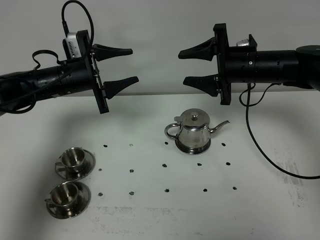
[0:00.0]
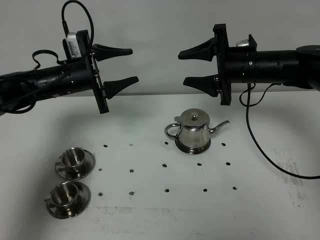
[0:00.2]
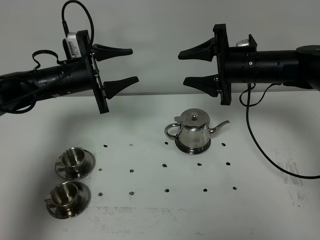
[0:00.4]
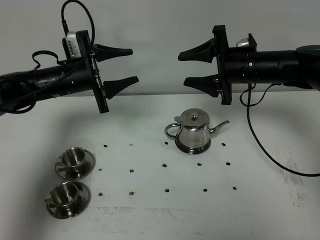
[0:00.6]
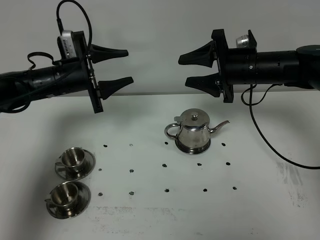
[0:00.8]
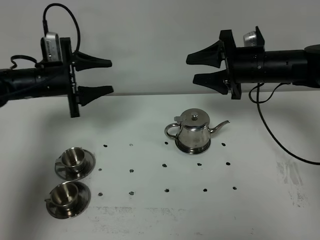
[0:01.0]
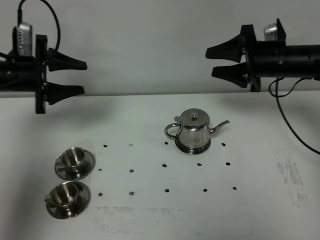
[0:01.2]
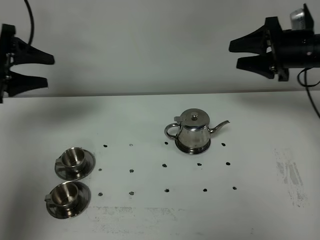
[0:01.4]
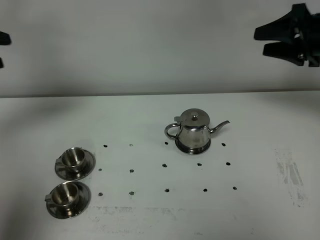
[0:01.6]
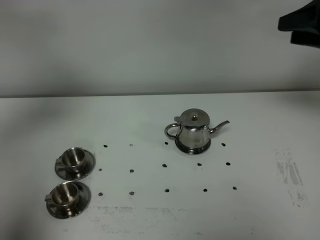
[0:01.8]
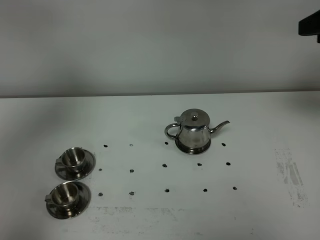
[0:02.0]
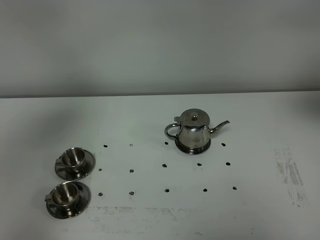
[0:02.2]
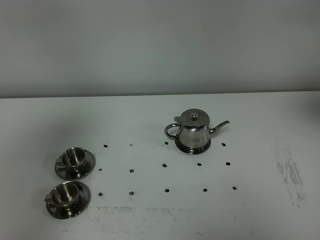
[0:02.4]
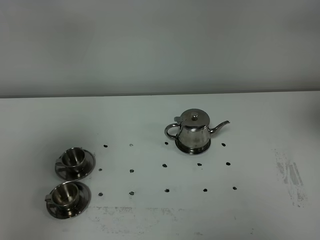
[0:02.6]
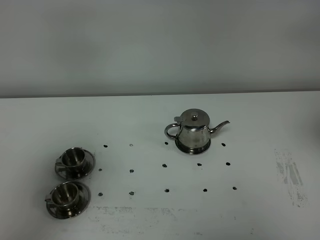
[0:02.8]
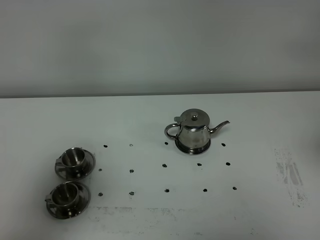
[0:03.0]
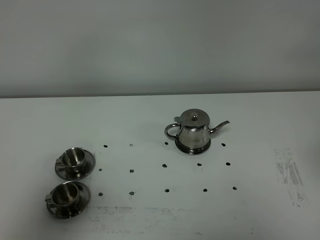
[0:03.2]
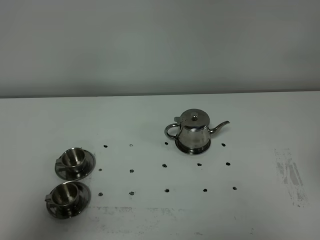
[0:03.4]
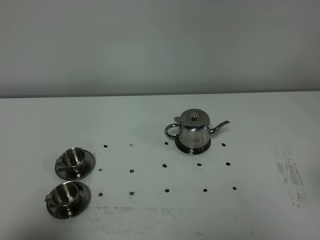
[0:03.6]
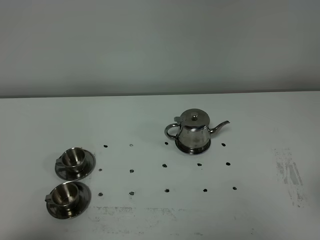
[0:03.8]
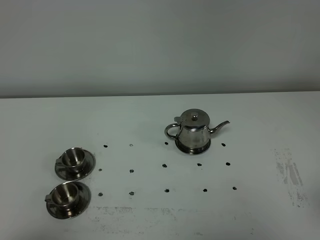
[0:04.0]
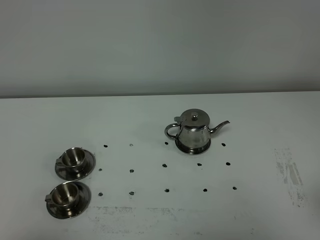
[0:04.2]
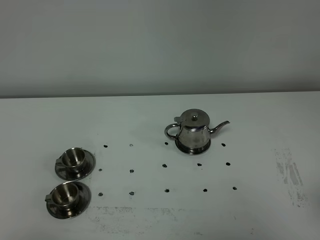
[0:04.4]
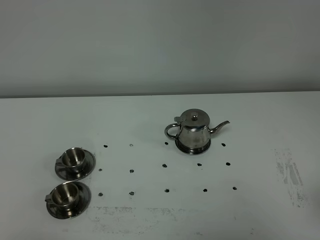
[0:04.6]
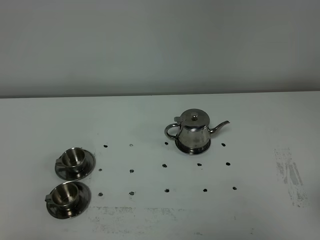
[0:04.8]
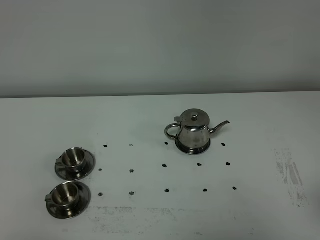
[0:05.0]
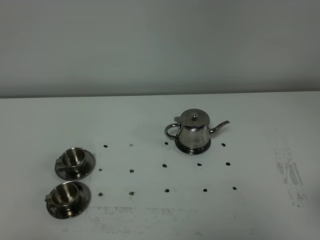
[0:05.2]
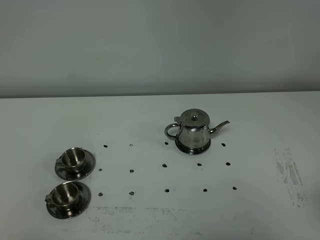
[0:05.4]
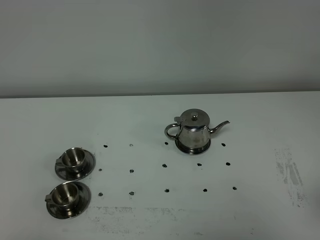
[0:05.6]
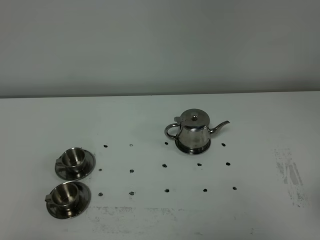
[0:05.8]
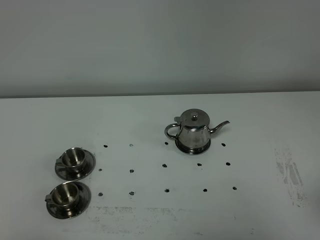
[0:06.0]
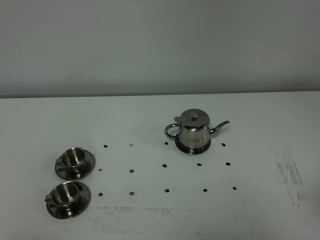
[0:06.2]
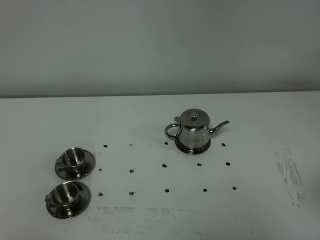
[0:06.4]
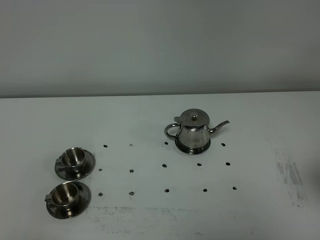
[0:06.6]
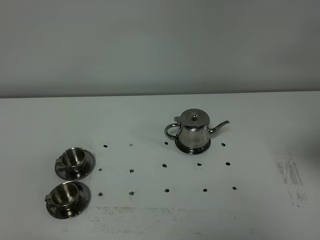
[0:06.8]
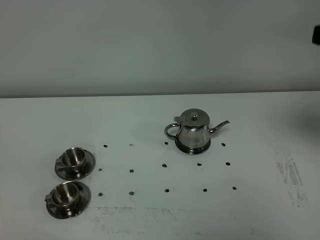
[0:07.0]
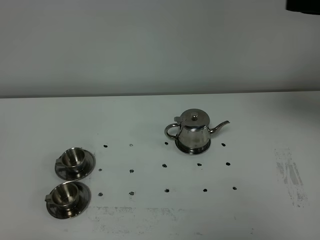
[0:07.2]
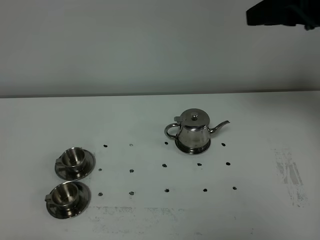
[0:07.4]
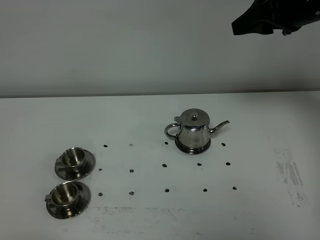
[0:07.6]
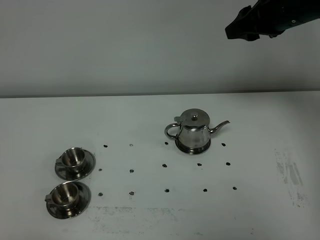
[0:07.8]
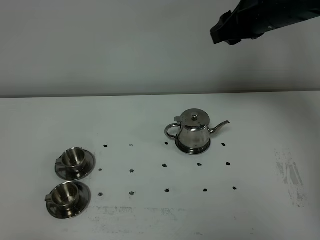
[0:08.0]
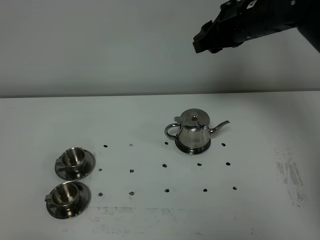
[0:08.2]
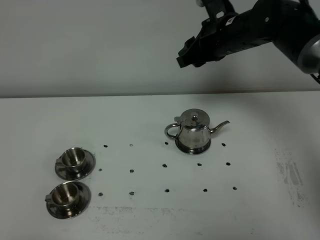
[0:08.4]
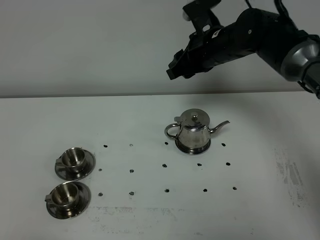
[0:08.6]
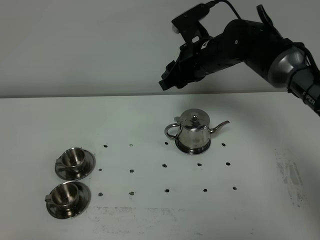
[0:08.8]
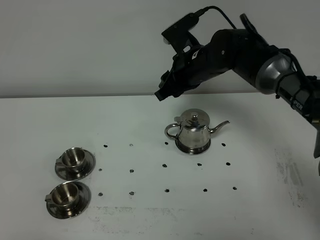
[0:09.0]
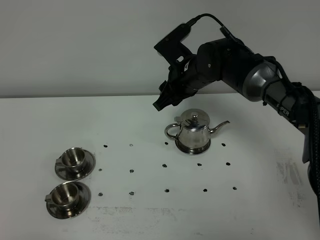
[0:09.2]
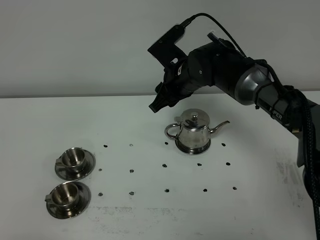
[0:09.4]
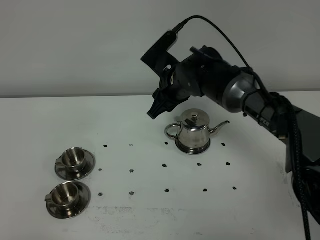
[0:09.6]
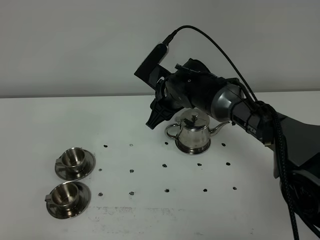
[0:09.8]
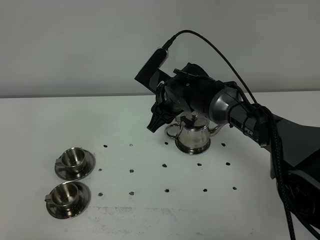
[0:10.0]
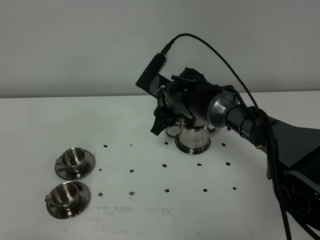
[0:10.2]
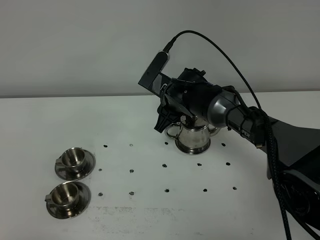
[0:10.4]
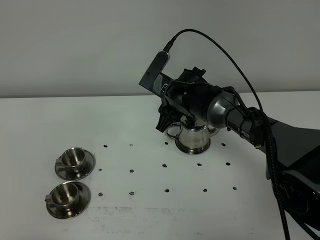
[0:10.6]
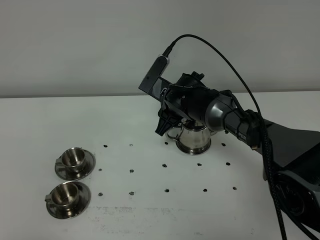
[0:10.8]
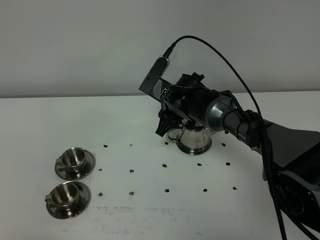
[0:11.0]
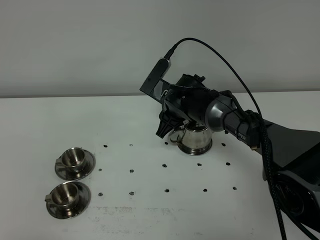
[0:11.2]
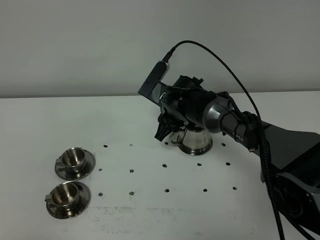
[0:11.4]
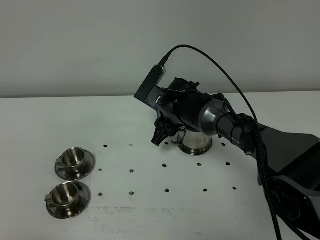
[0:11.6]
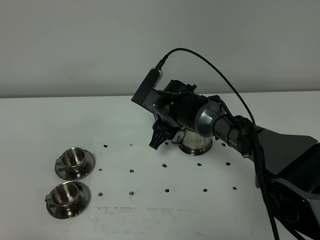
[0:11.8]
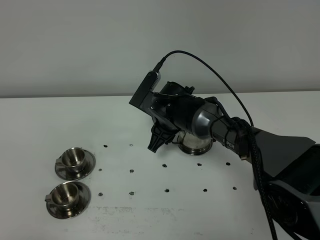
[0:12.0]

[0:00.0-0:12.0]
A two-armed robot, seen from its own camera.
Task of the whole recording: grasp the stainless steel teapot and pour the tea into the two stainless steel teacups one by one, put the stainless steel teapot back in its original place.
0:00.0 to 0:01.6: The left gripper shifts roughly 25 cm to the left, upward and backward, while the right gripper heads to the right and upward, covering some 15 cm.
0:01.6 to 0:03.0: The grippers both shift backward by about 25 cm.
0:03.0 to 0:04.4: The left gripper shifts roughly 20 cm downward and backward.
0:04.4 to 0:06.0: Neither gripper changes place.
0:06.0 to 0:07.6: The right gripper goes some 30 cm forward.
0:07.6 to 0:09.0: The right gripper travels to the left and downward by approximately 20 cm.
0:09.0 to 0:10.4: The right gripper heads downward, covering about 5 cm.
0:10.4 to 0:12.0: The grippers move only a little.

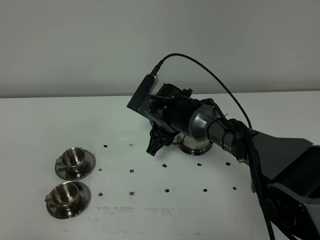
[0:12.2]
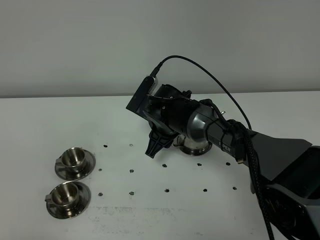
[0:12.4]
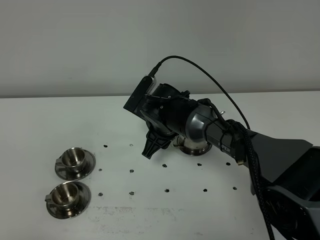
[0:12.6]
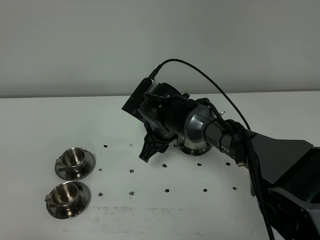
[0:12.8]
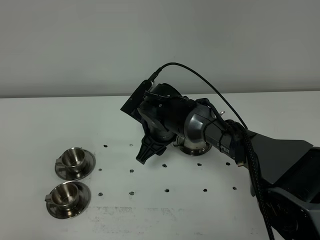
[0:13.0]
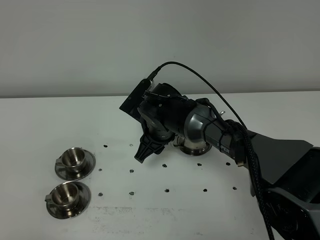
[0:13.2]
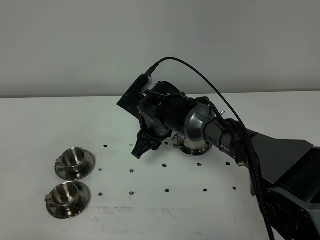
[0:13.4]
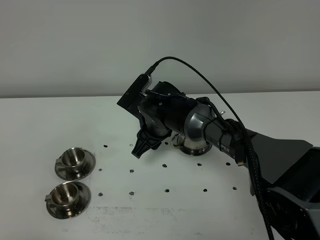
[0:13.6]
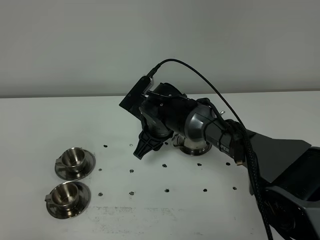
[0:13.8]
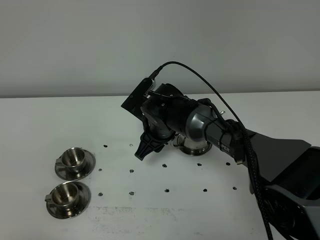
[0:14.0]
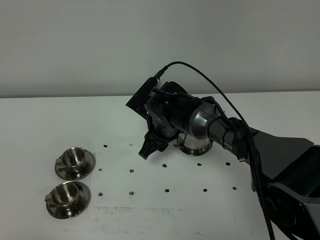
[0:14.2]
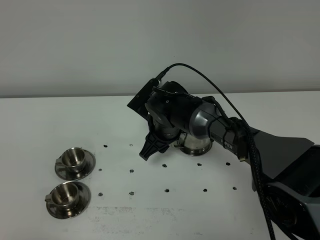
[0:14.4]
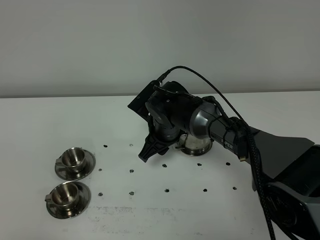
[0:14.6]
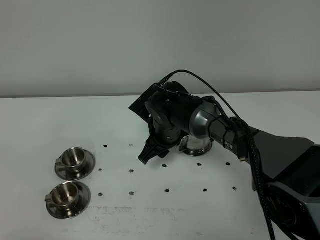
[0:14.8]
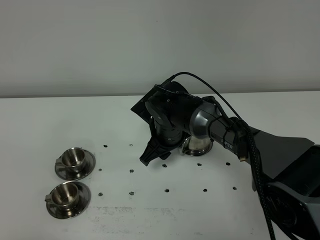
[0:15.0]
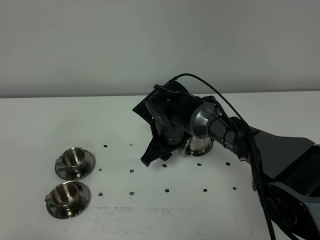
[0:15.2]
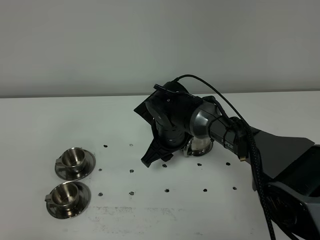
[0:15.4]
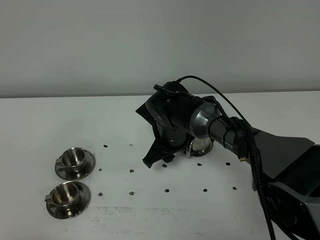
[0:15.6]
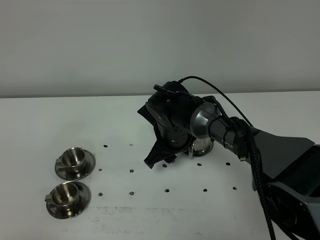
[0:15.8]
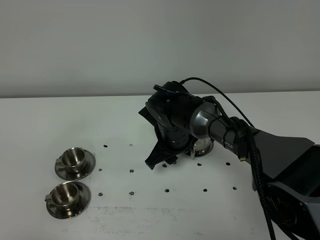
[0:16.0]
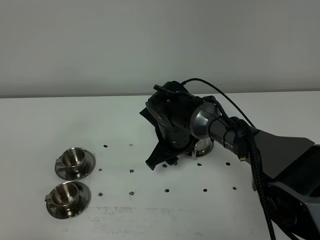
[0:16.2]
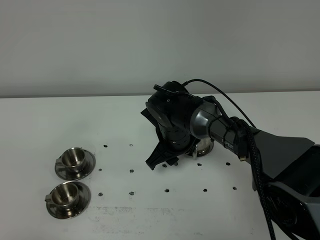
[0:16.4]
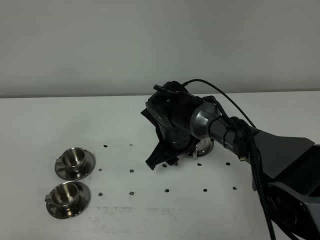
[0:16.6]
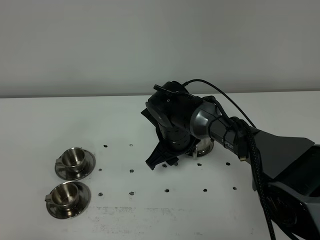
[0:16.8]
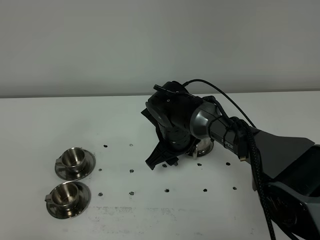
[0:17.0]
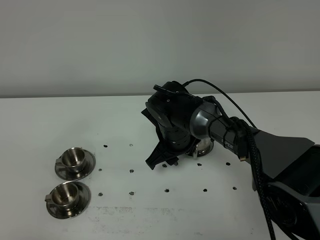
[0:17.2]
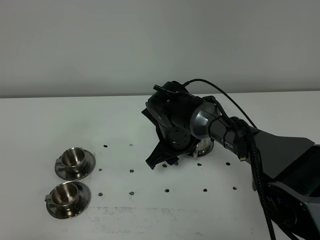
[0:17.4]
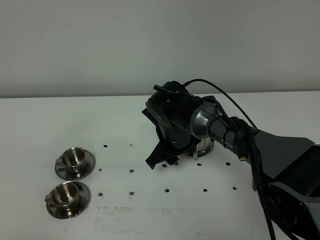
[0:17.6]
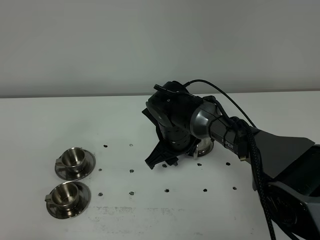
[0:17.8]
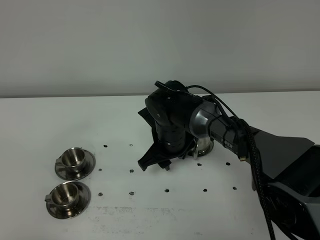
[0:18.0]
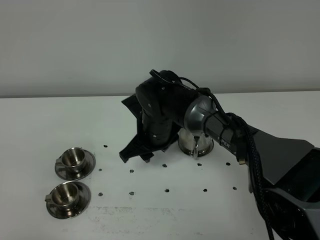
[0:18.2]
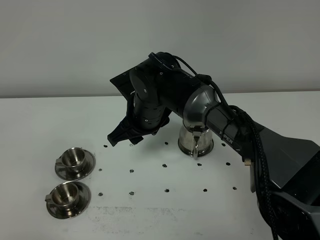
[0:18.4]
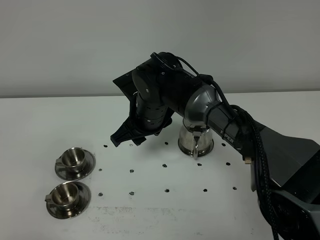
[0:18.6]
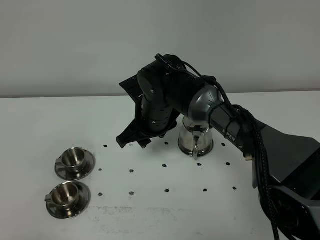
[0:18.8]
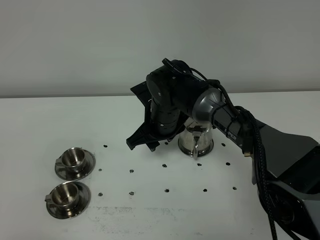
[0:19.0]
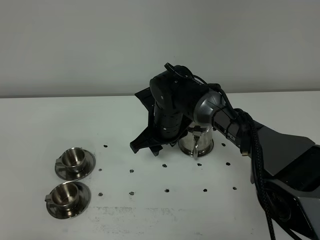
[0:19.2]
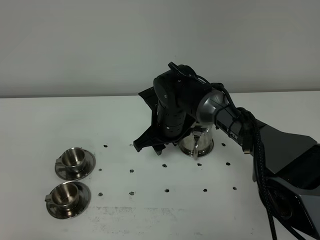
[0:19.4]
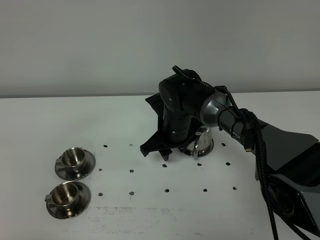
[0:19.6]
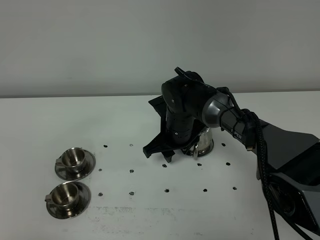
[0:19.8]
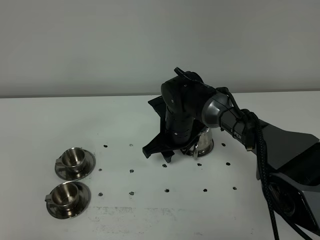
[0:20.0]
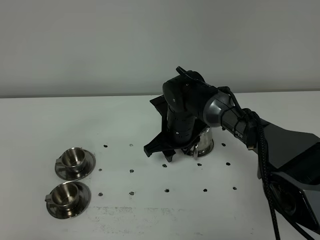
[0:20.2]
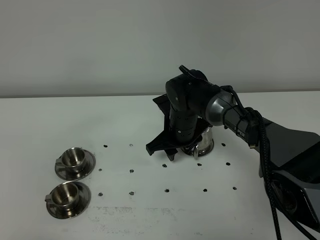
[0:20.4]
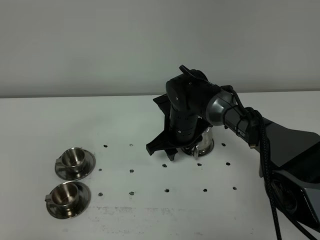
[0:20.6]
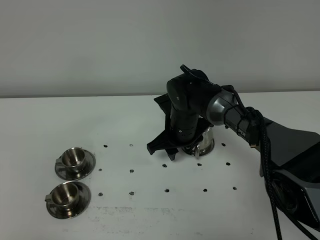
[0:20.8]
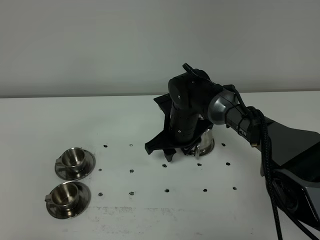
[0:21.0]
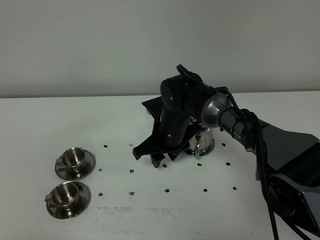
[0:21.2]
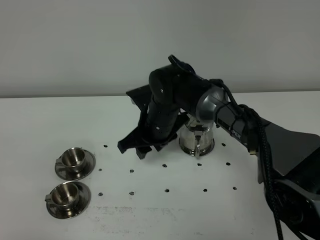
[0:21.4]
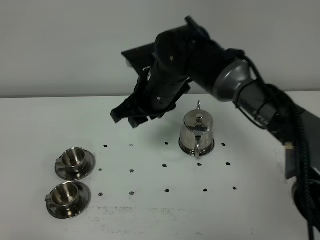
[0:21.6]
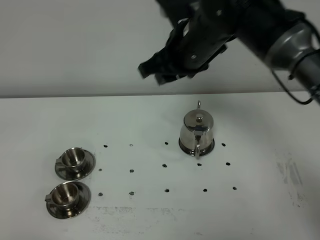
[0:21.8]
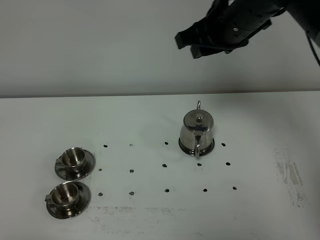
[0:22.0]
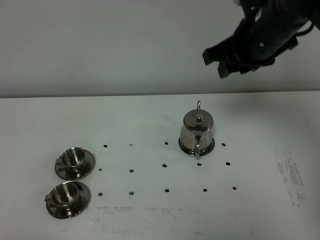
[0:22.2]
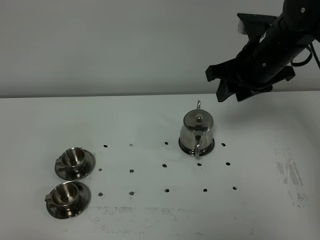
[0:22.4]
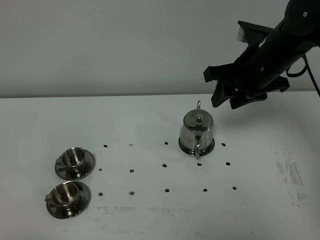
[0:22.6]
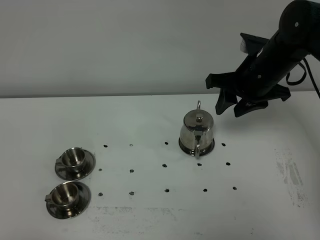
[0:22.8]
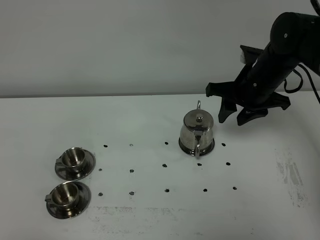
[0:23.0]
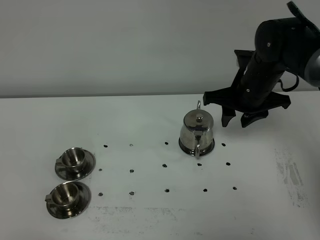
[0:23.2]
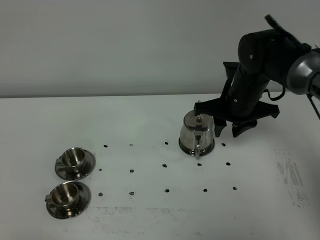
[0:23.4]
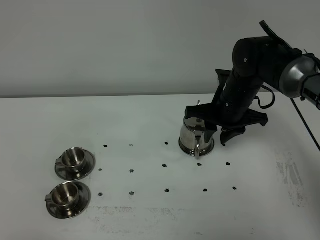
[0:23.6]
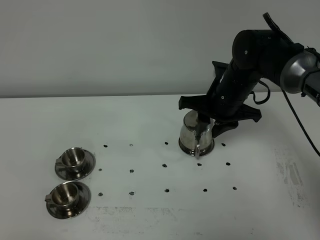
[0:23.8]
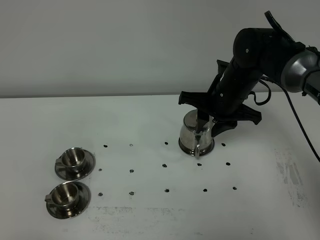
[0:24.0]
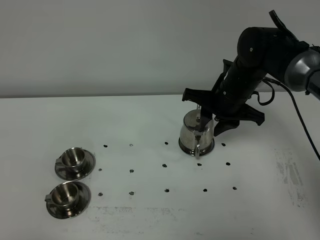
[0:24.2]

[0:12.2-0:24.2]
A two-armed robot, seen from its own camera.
Task of the whole recording: grasp the stainless steel teapot and pour the tea into the two stainless steel teacups one by one, put the stainless steel teapot back in its original place.
0:12.2 to 0:15.2: The grippers move only a little.
0:15.2 to 0:16.6: There are only small adjustments of the grippers.
0:16.6 to 0:18.2: The right gripper moves about 5 cm.
0:18.2 to 0:19.8: The right gripper shifts by about 5 cm.
0:19.8 to 0:21.2: The grippers make only small movements.
0:21.2 to 0:22.6: The right gripper travels to the right and upward by approximately 20 cm.
0:22.6 to 0:24.2: The right gripper goes some 5 cm downward.
